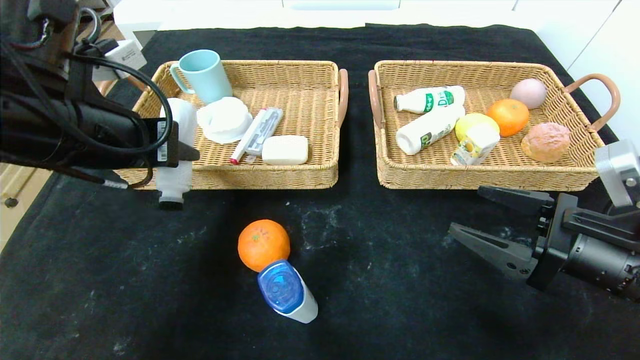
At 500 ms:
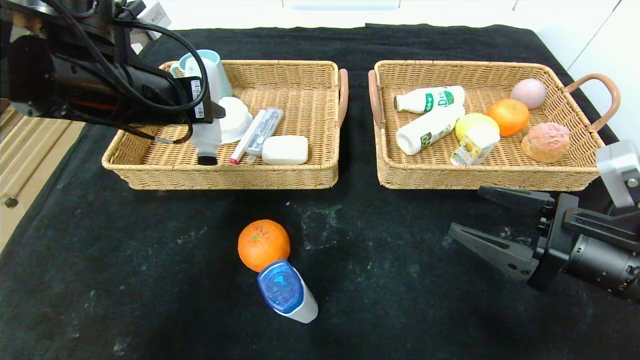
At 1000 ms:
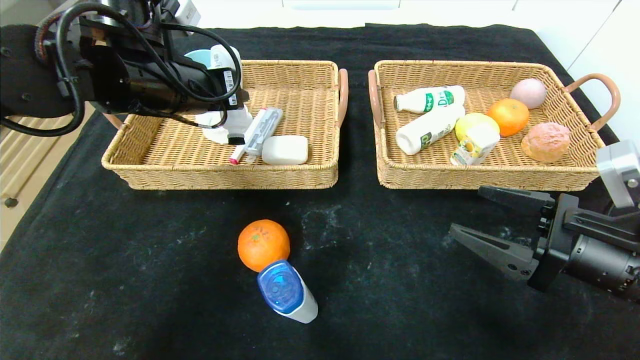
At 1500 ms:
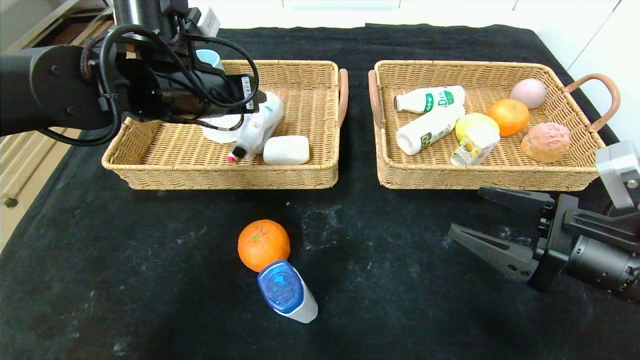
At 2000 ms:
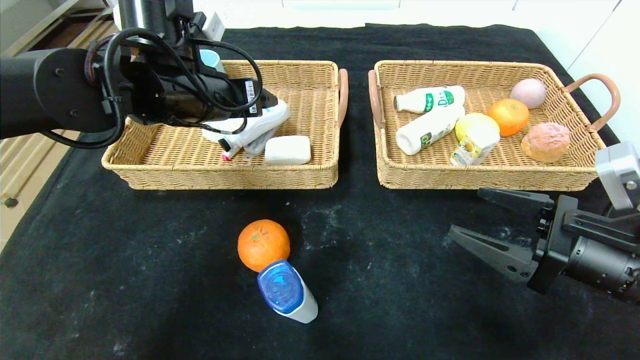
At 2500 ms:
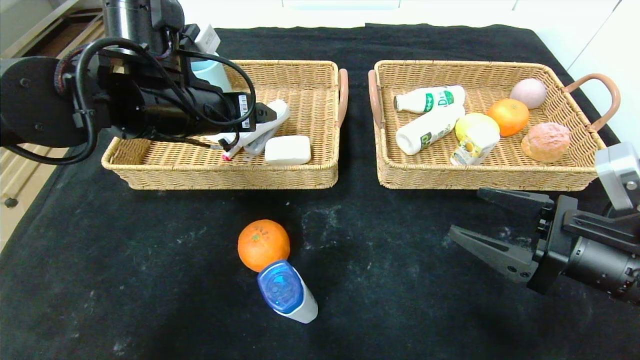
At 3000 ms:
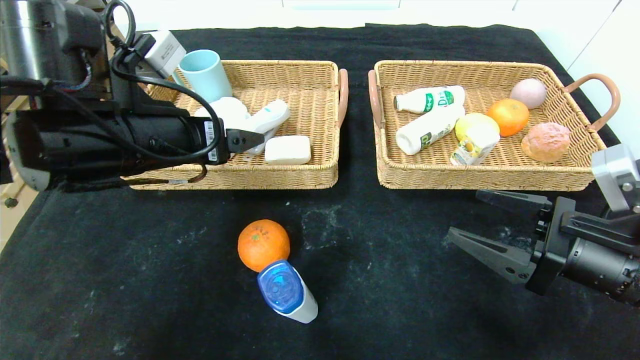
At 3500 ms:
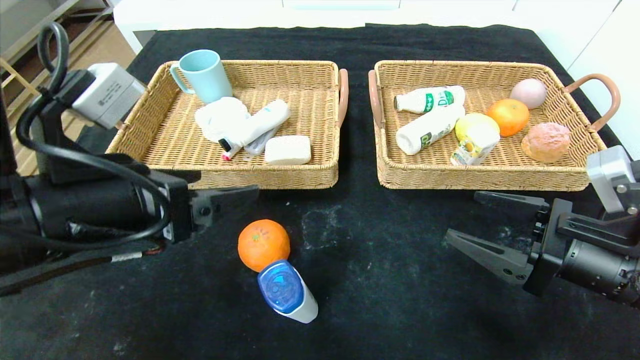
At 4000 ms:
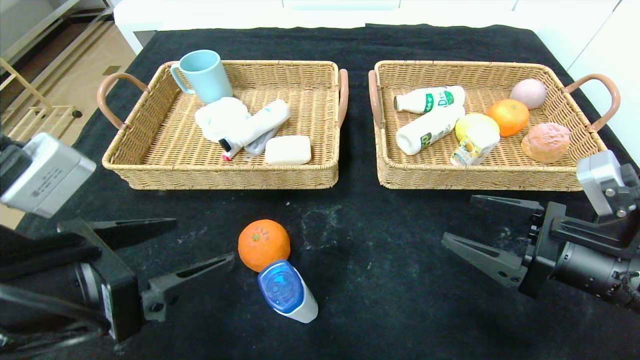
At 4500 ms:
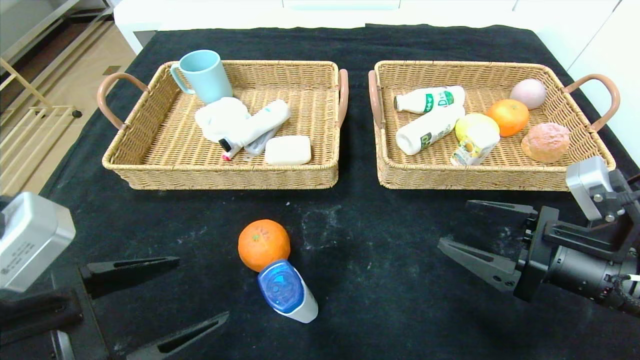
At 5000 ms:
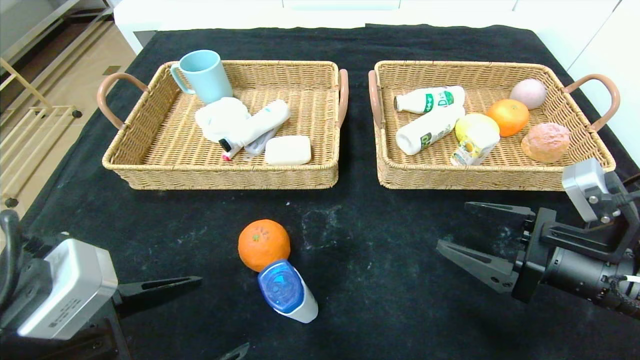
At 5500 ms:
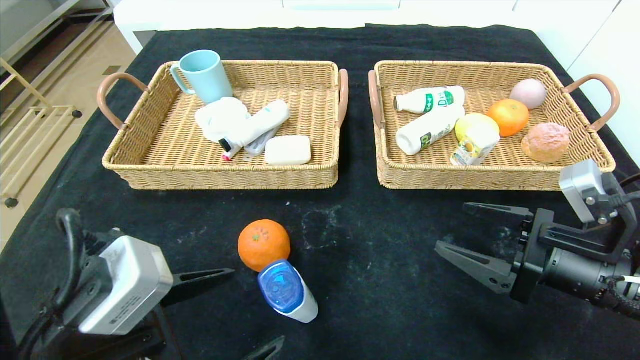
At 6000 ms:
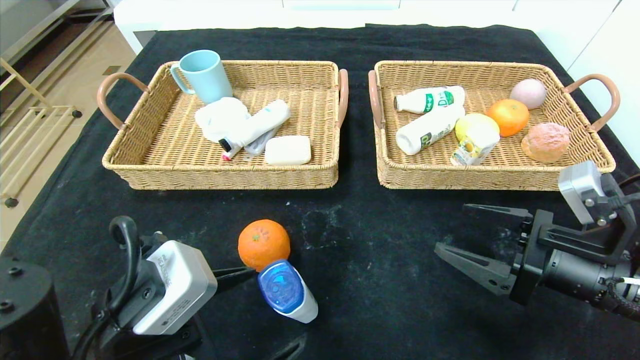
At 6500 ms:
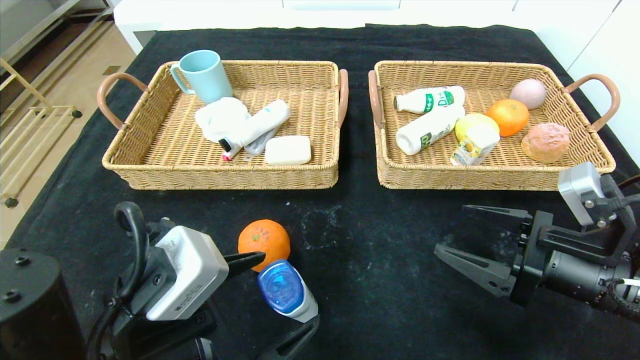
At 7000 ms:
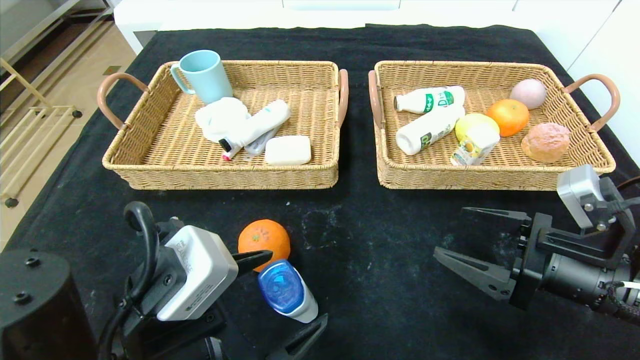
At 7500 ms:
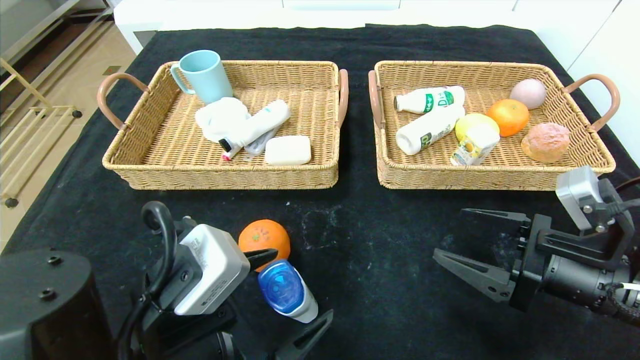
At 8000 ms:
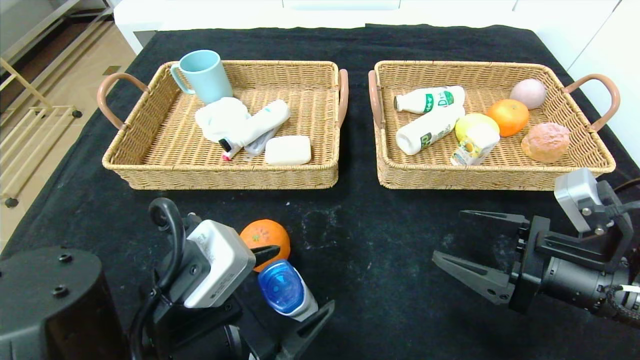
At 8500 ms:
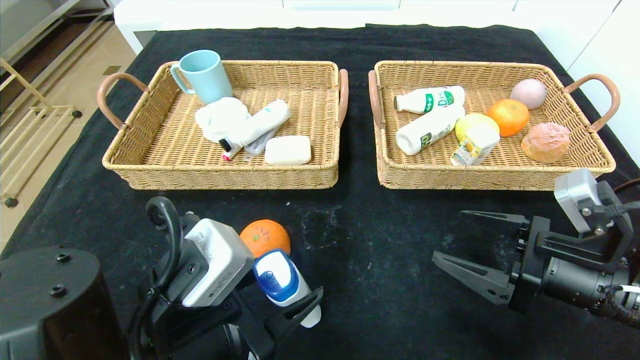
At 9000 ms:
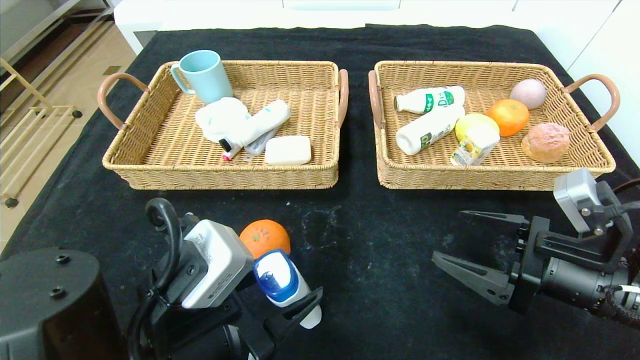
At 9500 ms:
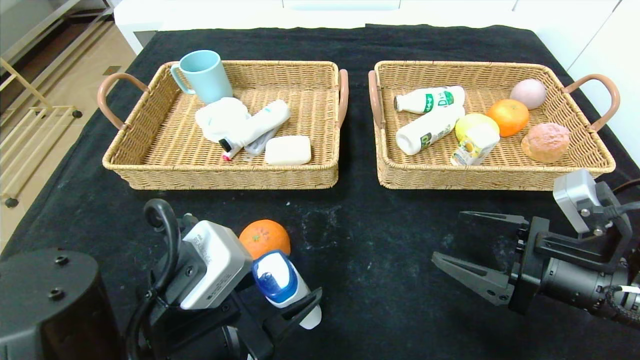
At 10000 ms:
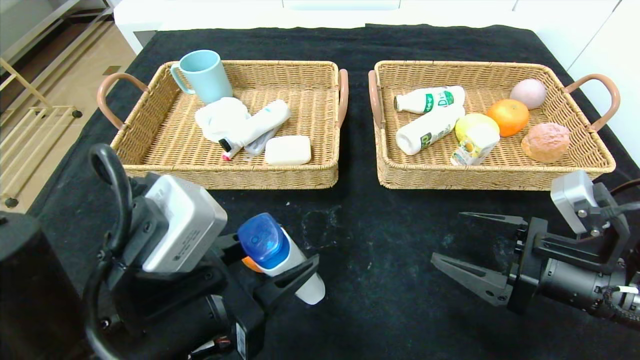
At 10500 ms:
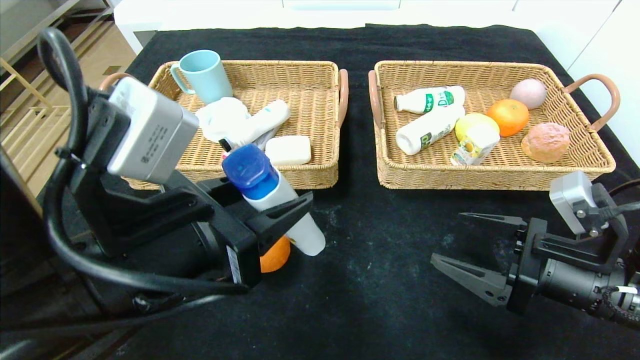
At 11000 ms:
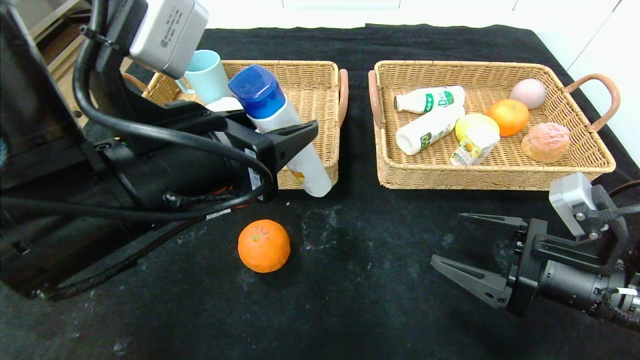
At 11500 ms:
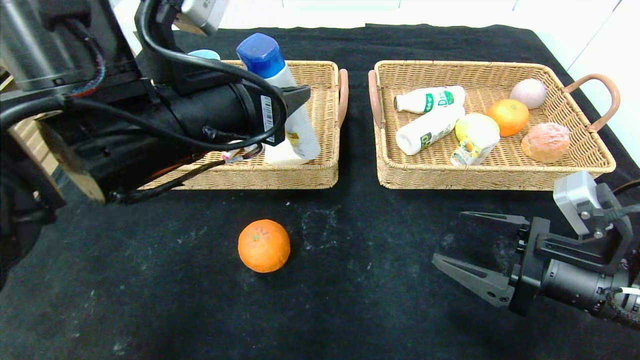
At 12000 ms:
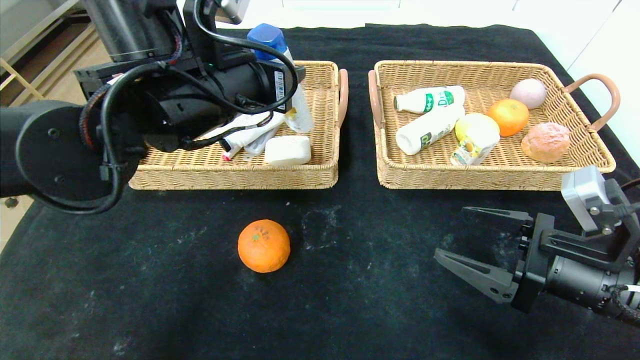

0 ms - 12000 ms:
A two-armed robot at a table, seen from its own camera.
0 ms - 2000 ms: The left gripper heads forward and to the right, covering some 10 cm, and opens up.
2000 ms - 4000 ms: The left gripper goes approximately 20 cm backward.
4000 ms - 6000 ms: The left gripper goes some 10 cm downward and to the right.
6000 ms - 8000 ms: The grippers move only a little.
8000 ms - 10000 ms: The left gripper closes.
10000 ms - 12000 ms: The left gripper goes some 20 cm forward and upward.

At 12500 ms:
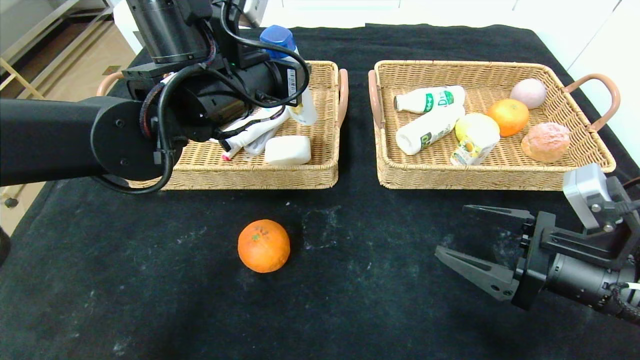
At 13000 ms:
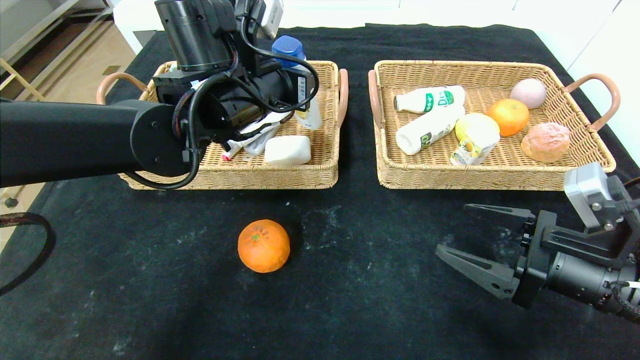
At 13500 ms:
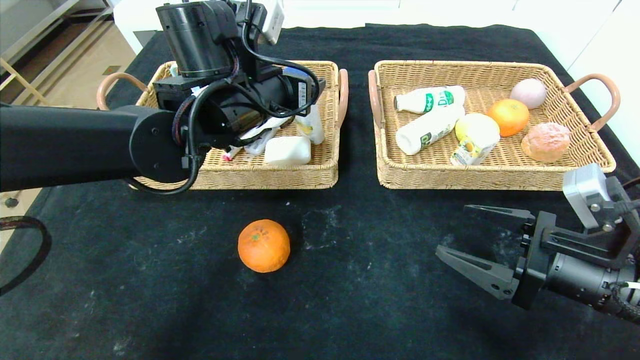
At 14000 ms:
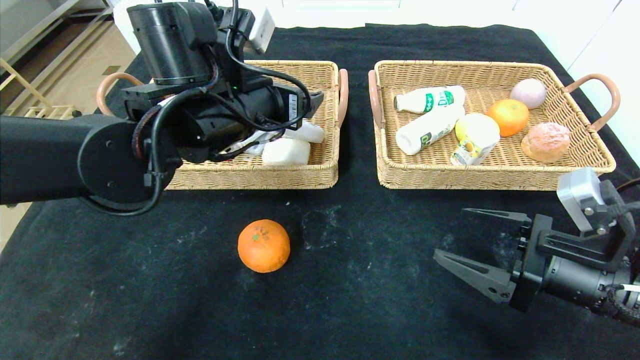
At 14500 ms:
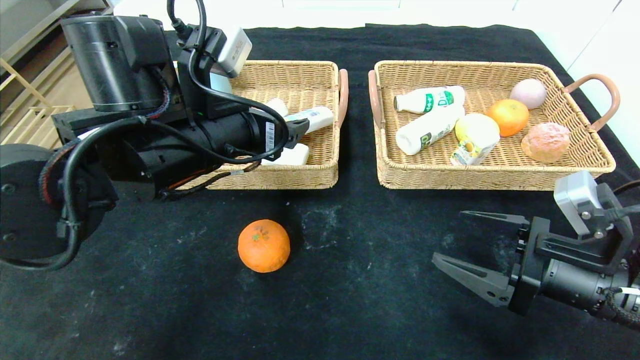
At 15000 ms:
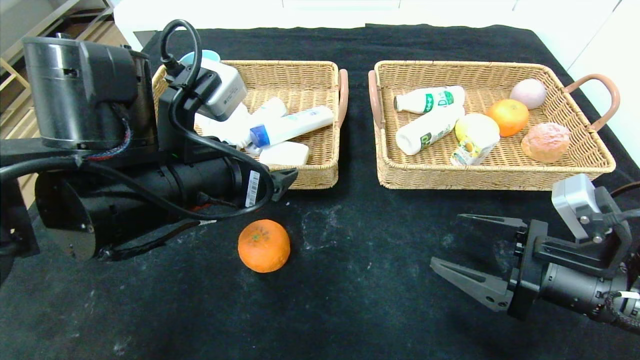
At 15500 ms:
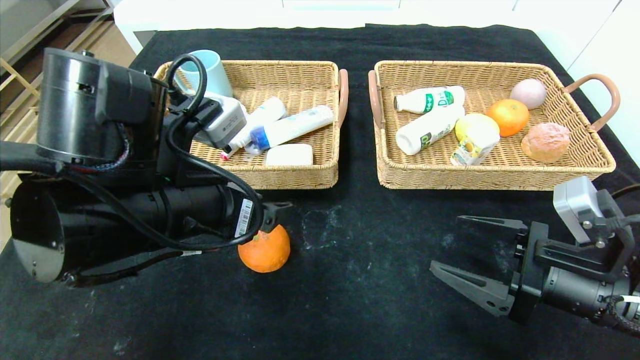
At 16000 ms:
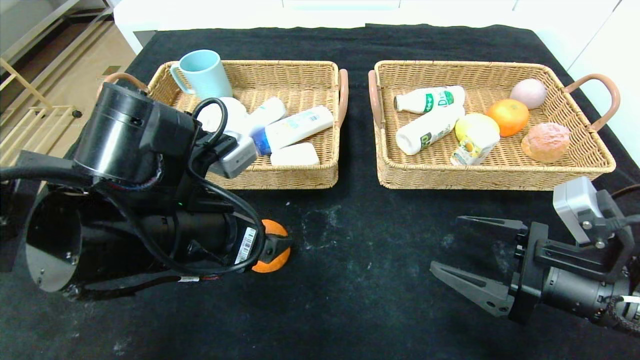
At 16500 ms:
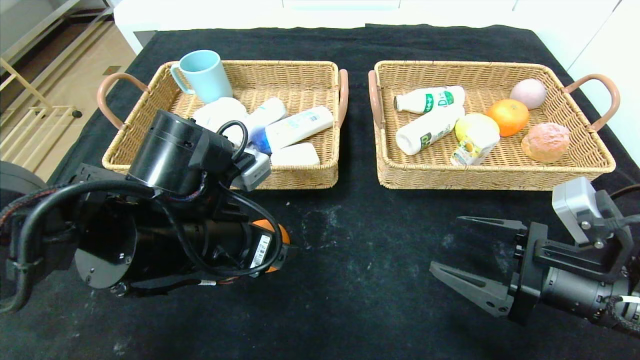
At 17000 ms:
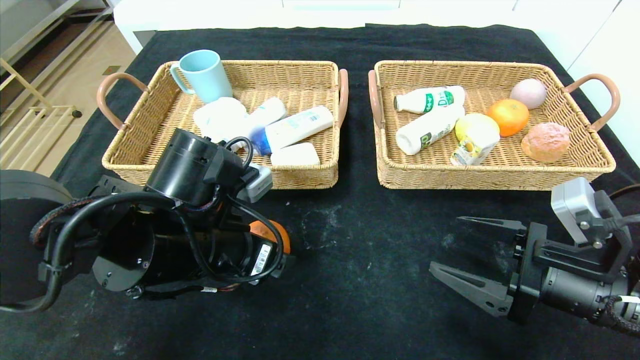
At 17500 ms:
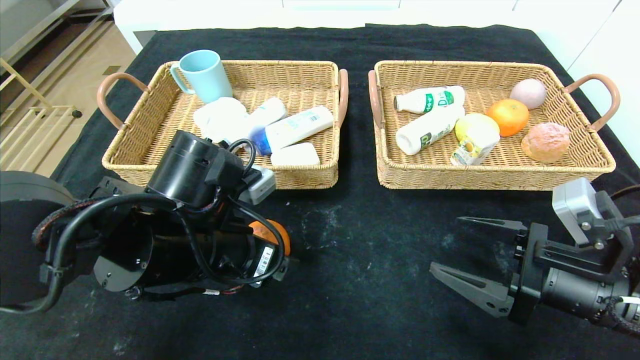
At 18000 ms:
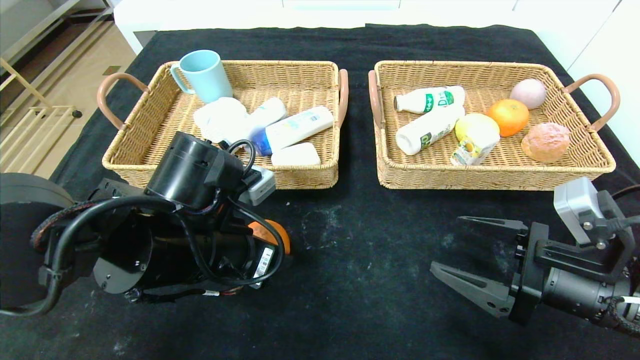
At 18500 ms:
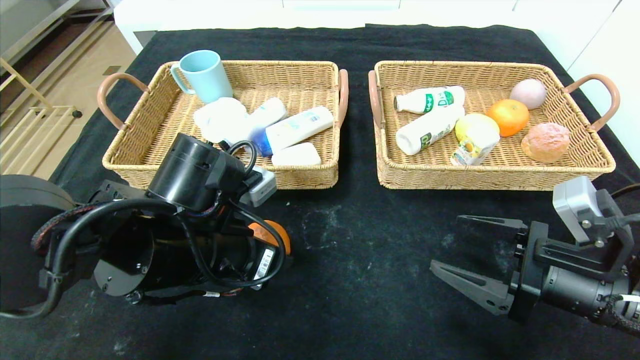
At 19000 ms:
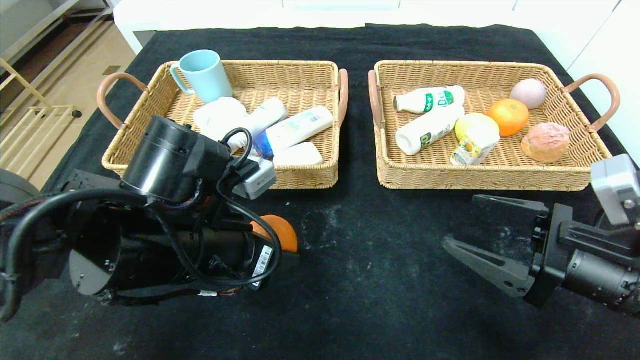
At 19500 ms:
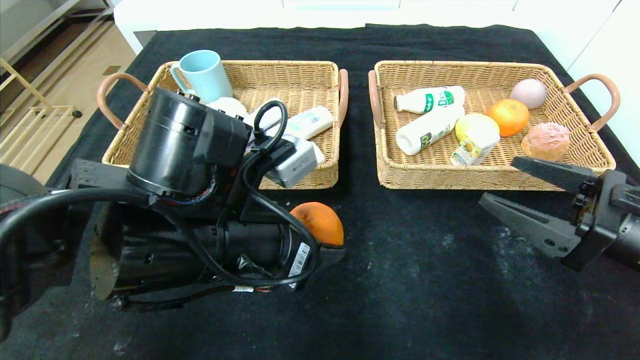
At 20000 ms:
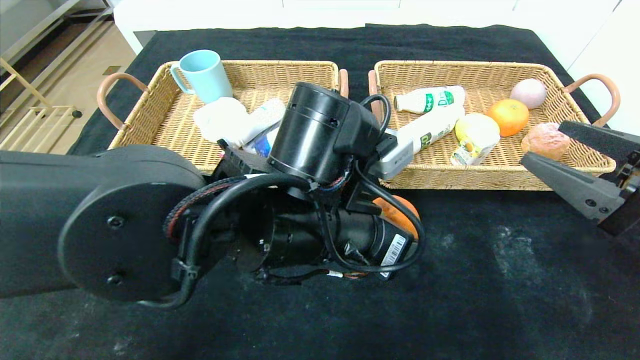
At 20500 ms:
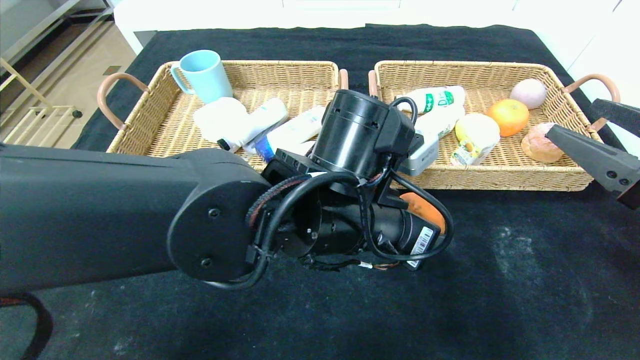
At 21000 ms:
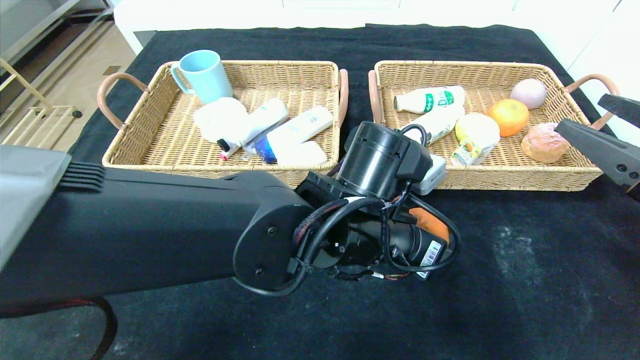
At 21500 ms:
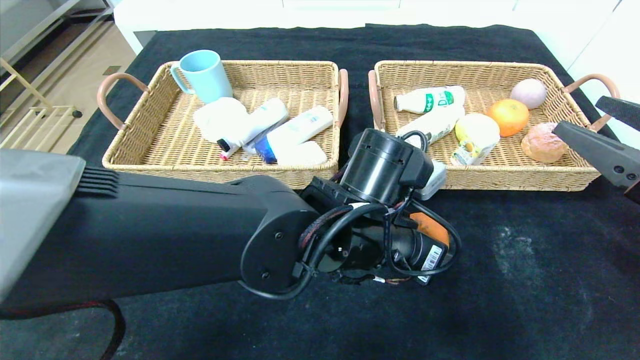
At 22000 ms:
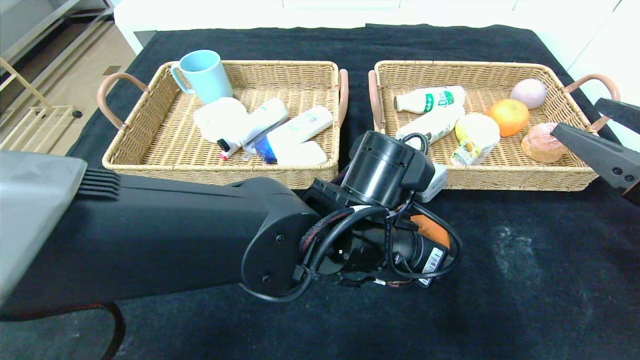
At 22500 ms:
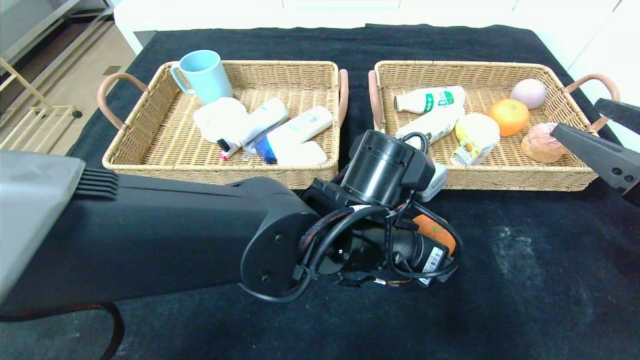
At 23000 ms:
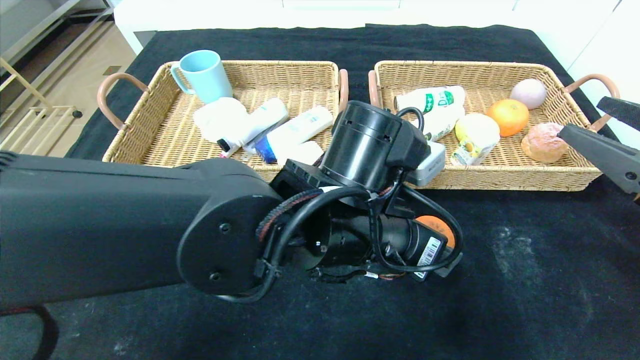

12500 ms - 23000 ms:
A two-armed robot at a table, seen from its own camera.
Step, 12500 ms - 14500 ms: Grasp the shampoo and put it in the left basket.
12500 ms - 14500 ms: The left gripper heads backward, covering roughly 5 cm, and opens its fingers.
14500 ms - 16500 ms: The left gripper shifts approximately 10 cm downward and backward.
16500 ms - 19000 ms: The left gripper closes its fingers.
19000 ms - 21000 ms: The right gripper goes roughly 10 cm upward and to the right; the left gripper goes roughly 15 cm to the right.
21000 ms - 23000 ms: The left gripper opens.
